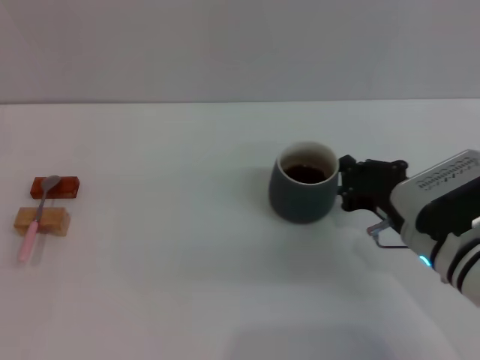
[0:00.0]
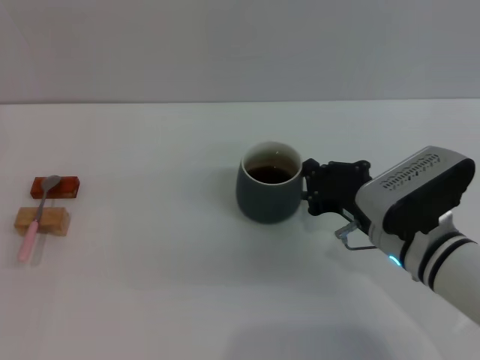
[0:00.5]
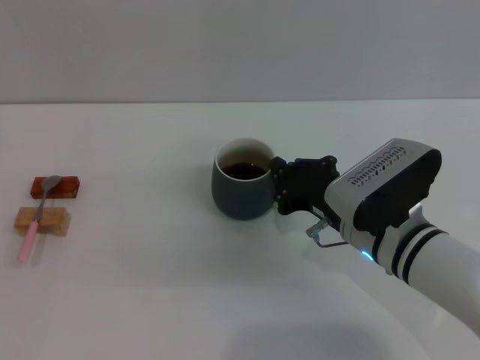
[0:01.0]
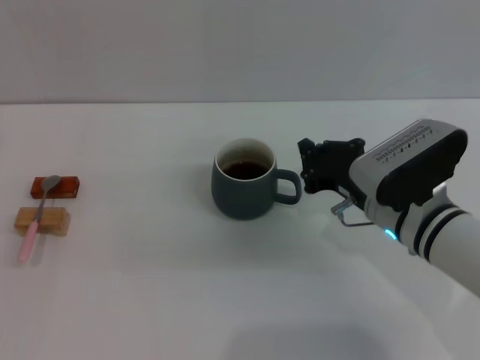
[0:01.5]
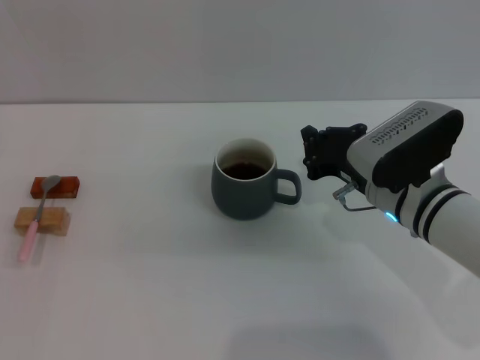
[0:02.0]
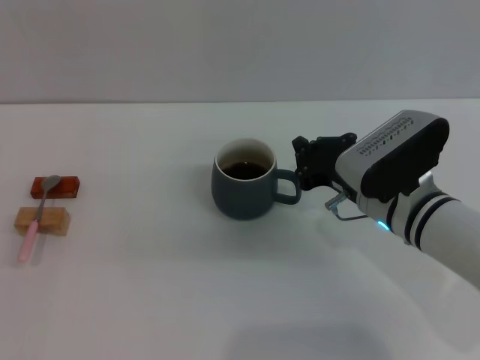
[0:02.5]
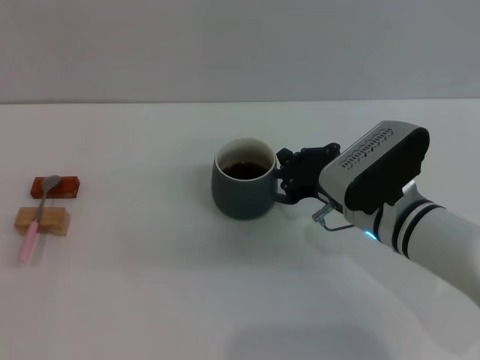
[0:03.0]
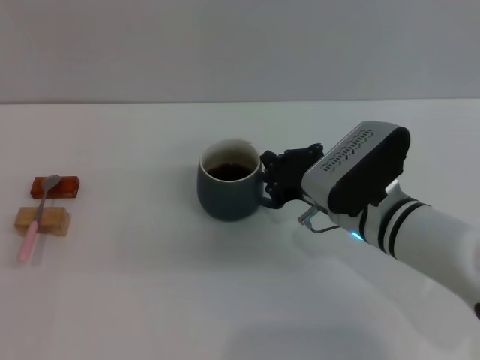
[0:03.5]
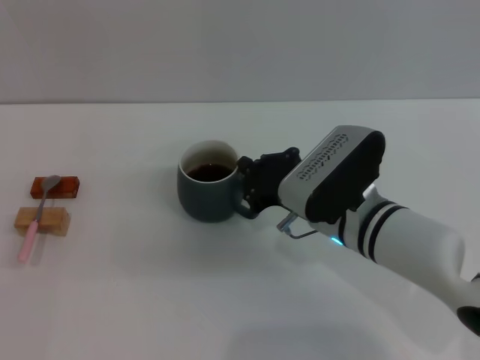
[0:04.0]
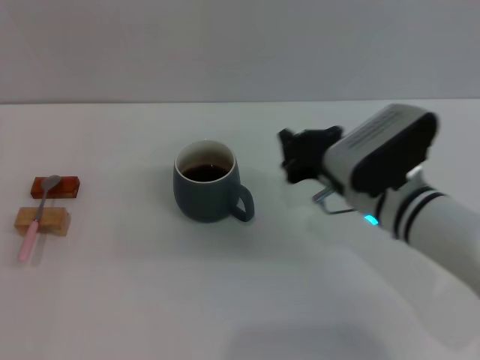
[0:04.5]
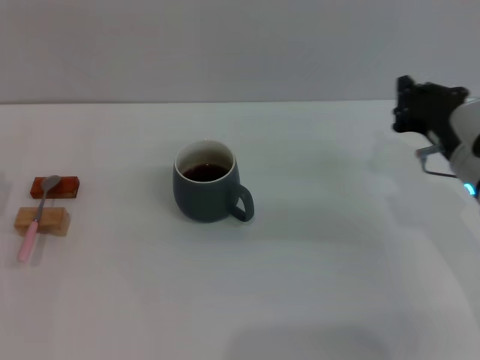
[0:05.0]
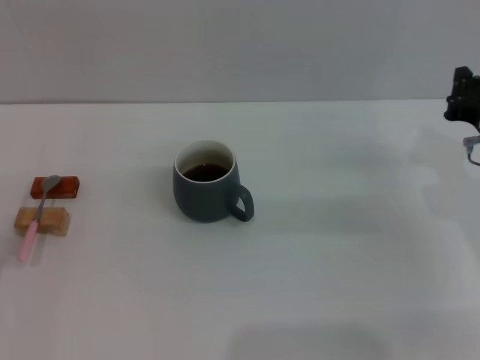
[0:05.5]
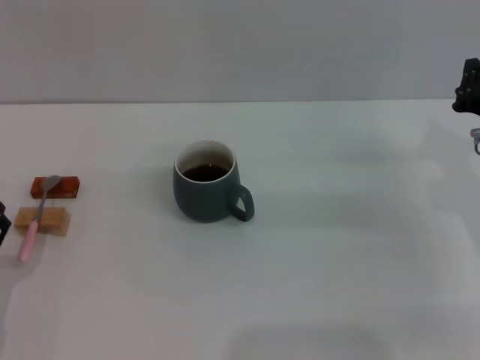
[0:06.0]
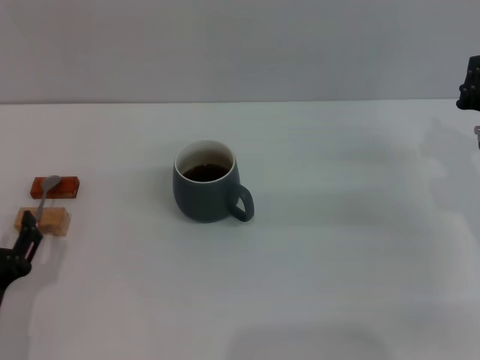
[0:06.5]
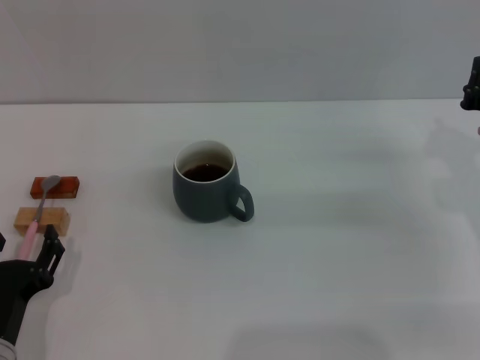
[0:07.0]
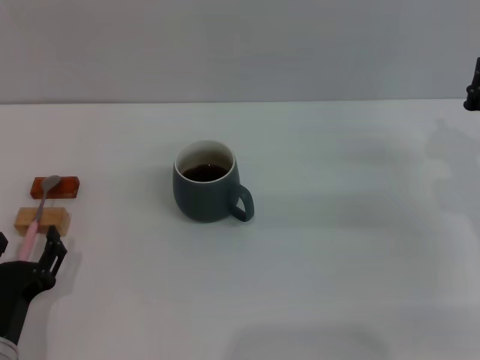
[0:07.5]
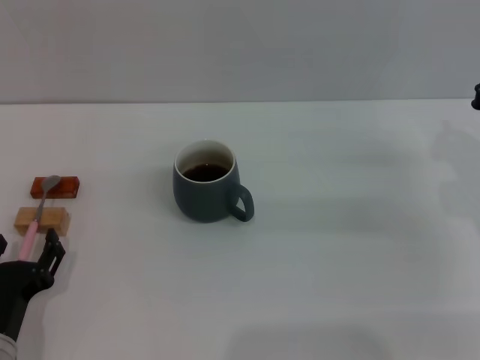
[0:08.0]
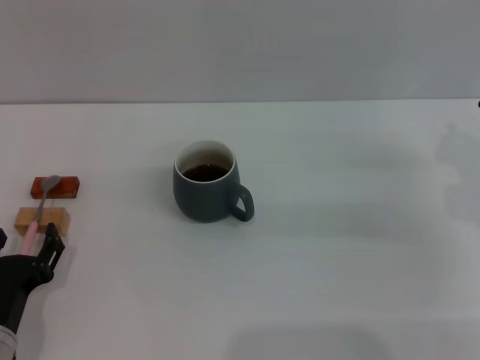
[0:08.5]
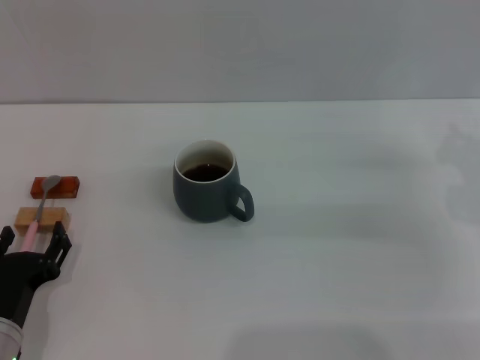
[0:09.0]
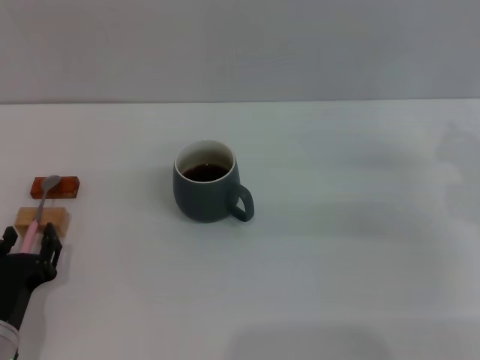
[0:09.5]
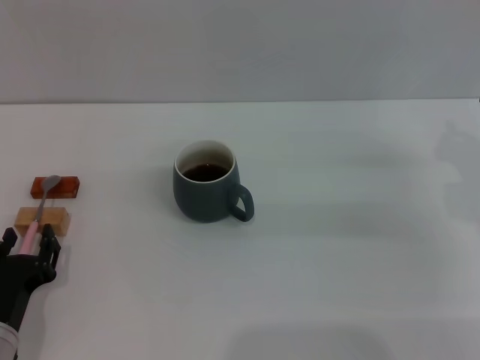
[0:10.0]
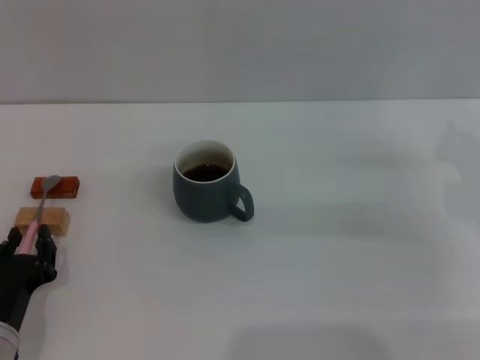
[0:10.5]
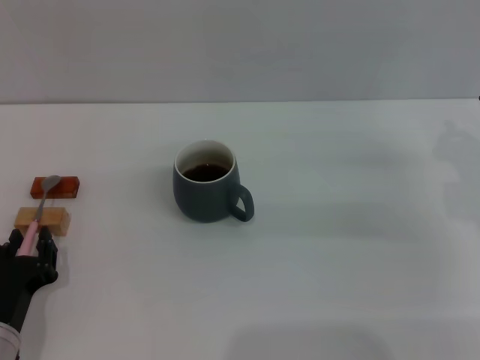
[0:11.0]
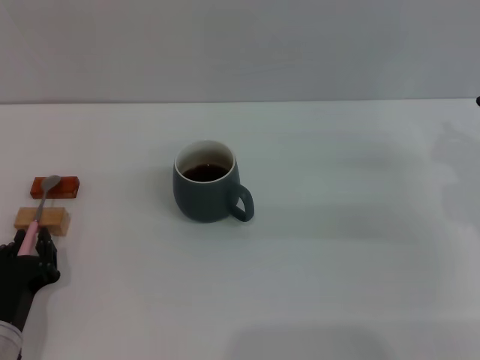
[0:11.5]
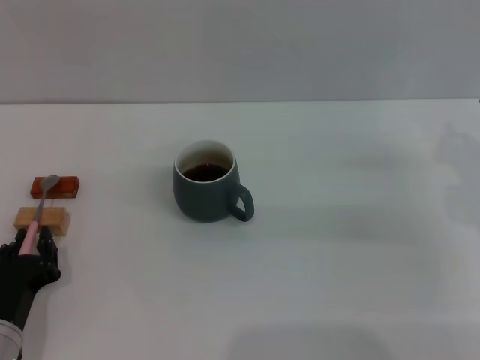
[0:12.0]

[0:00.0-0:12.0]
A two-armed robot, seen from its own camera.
Task of the whole recording: Move the grey cup to the center, lift the pink spoon, stir it three times in the cup, and put the spoon into the cup.
Step, 0:00.0 to 0:04.5: Move the cup with coffee to the center of view with the right gripper.
0:00.0 to 0:02.0: The right gripper shifts by some 5 cm.
0:02.0 to 0:04.0: The right gripper shifts some 5 cm to the left.
0:04.0 to 0:06.0: The right gripper goes approximately 20 cm to the right. Meanwhile the left gripper goes about 15 cm to the right, backward and downward.
0:06.0 to 0:08.0: The left gripper shifts by roughly 5 cm.
0:08.0 to 0:10.0: The grippers make only small movements.
0:10.0 to 0:12.0: The left gripper closes up.

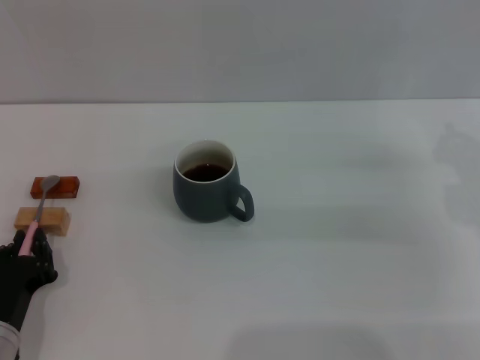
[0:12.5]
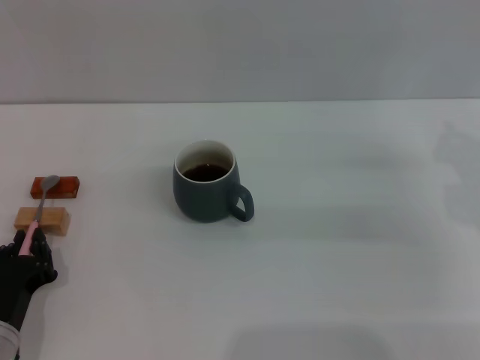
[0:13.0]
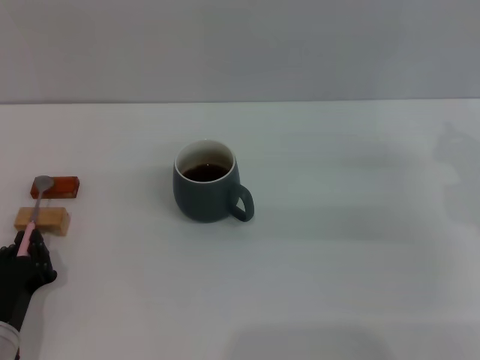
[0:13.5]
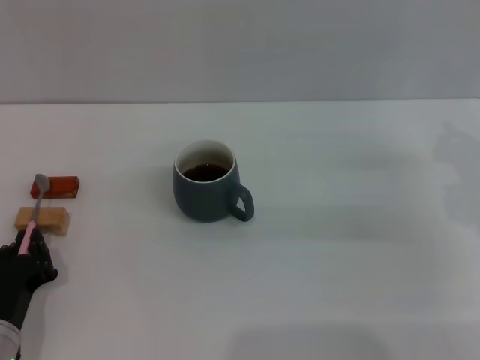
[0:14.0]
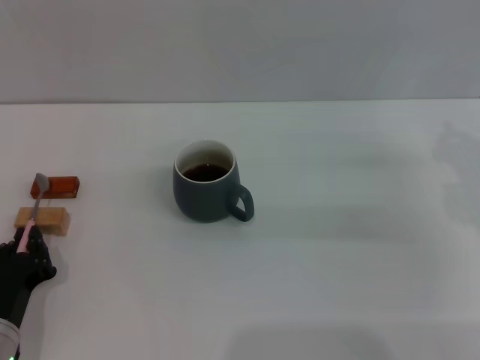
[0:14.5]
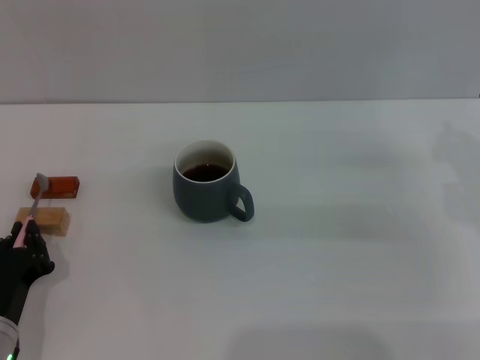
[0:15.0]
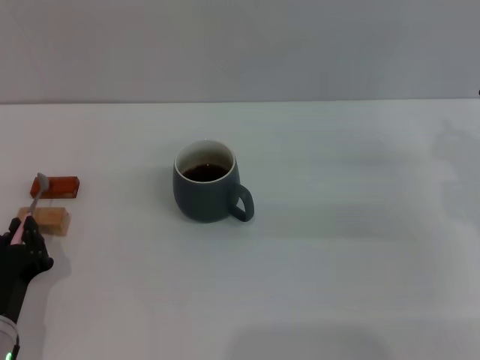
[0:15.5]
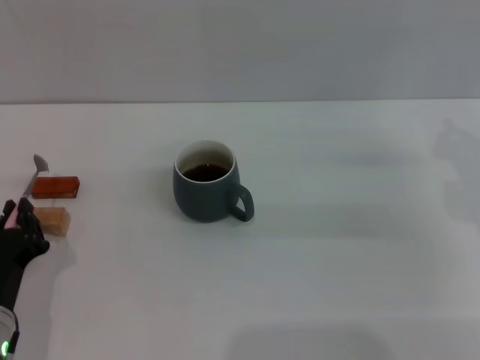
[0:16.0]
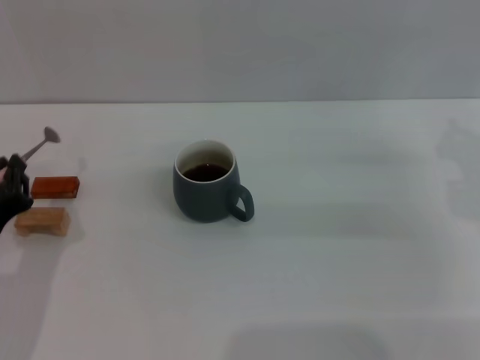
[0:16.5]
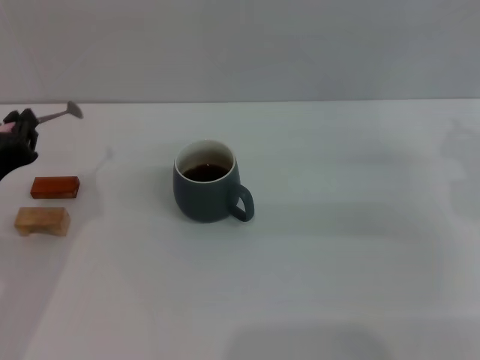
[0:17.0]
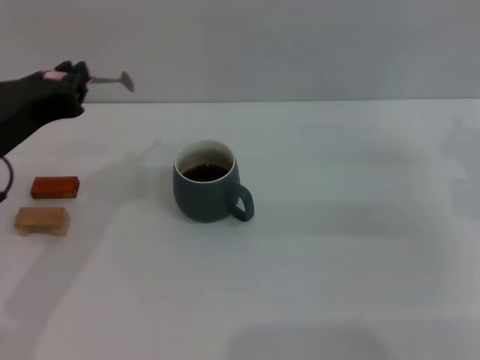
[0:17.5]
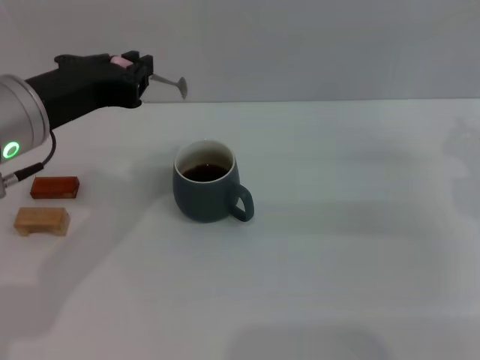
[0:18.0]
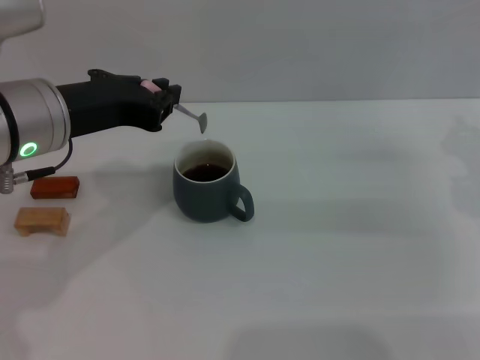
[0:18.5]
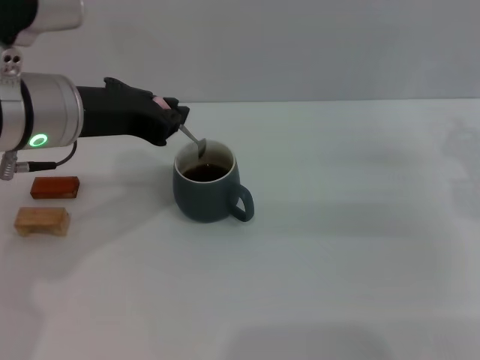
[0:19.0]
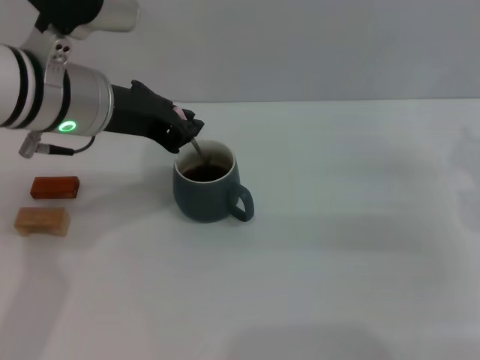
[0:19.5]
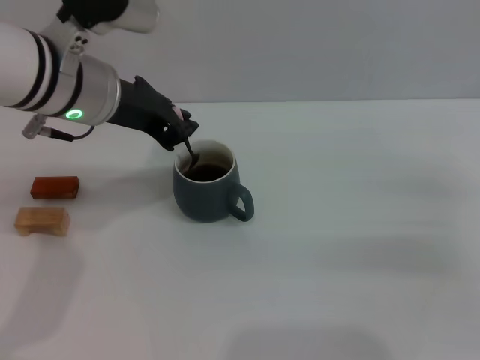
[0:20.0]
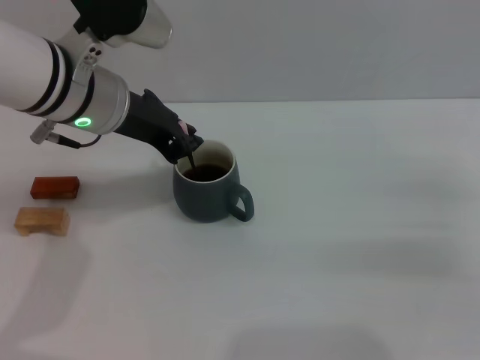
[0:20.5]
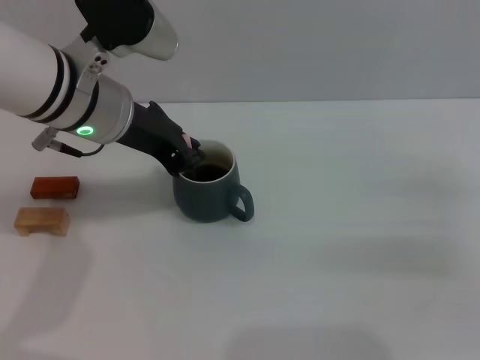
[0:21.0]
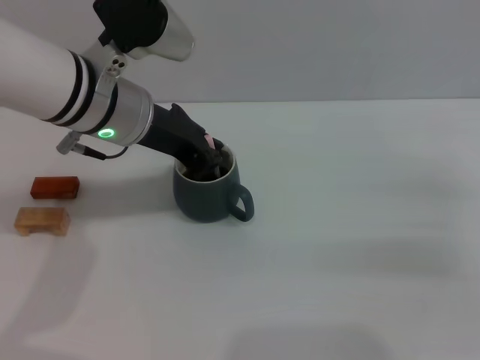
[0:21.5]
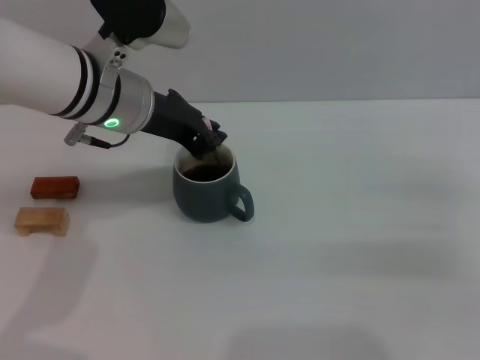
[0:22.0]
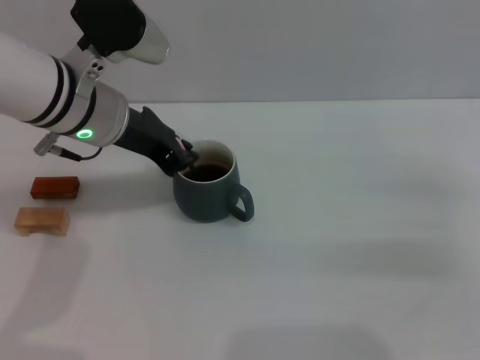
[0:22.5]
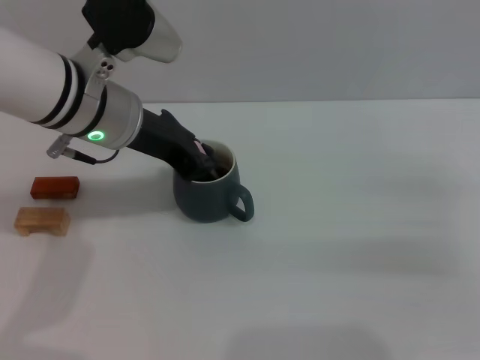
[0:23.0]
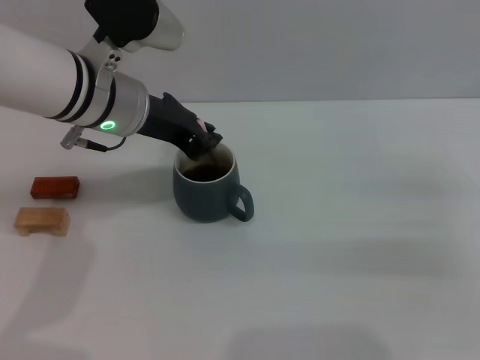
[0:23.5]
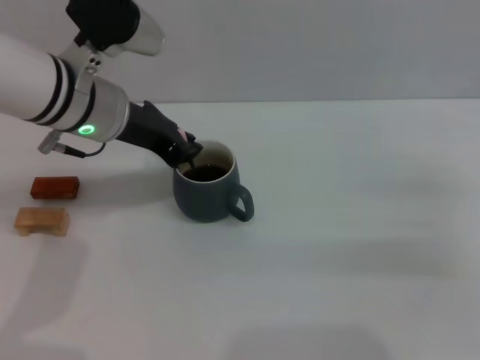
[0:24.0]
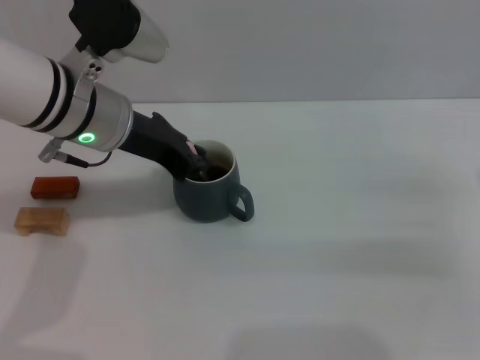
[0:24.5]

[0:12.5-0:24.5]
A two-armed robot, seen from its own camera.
Task of the whole recording: Move the grey cup to the center, lift the pink spoon, stir it three times in the cup, and put the spoon into the cup.
Step, 0:12.5 to 0:16.5: Pick up the spoon with the left gripper.
0:12.5 to 0:14.5: Both grippers stay put.
0:14.5 to 0:16.5: The left gripper goes roughly 10 cm upward.
0:16.5 to 0:18.5: The left gripper travels upward, forward and to the right by about 20 cm.
0:18.5 to 0:20.5: The right gripper shifts roughly 5 cm backward. The left gripper goes some 5 cm forward.
0:20.5 to 0:24.5: The grippers stay close to where they were, moving slightly.

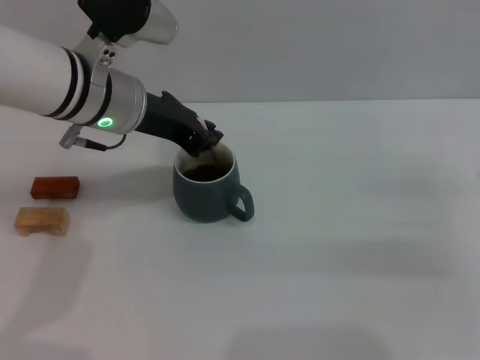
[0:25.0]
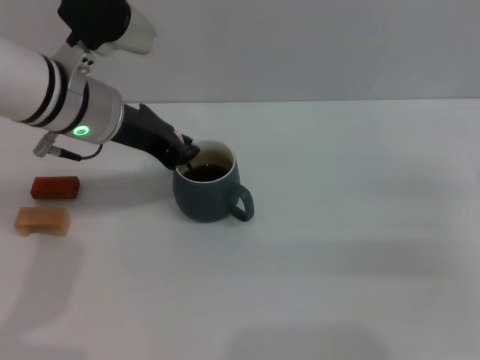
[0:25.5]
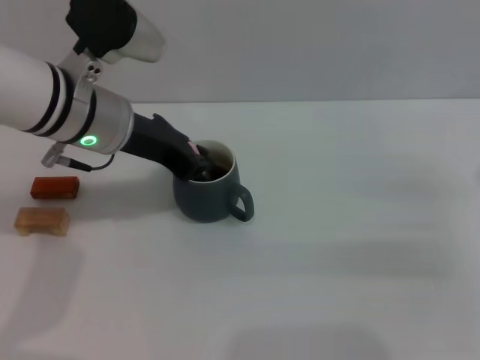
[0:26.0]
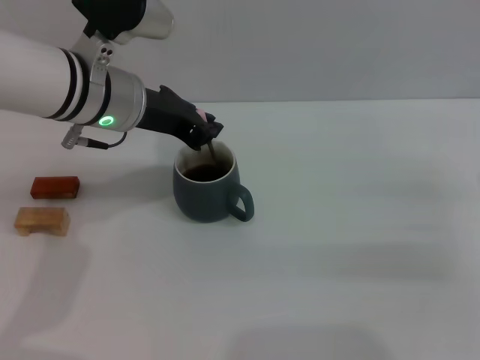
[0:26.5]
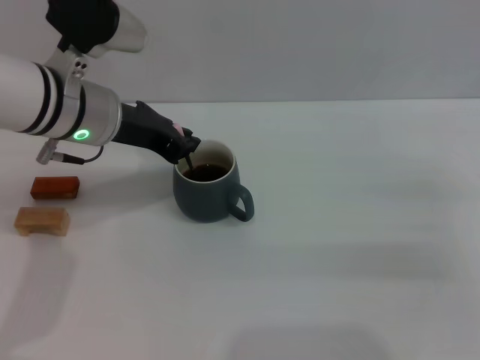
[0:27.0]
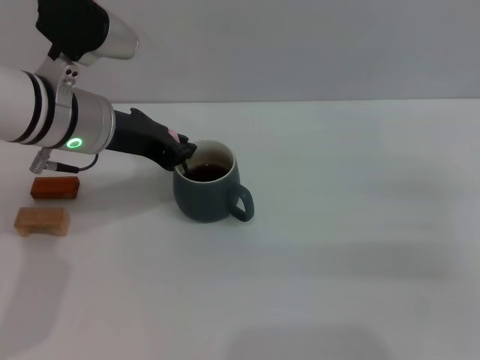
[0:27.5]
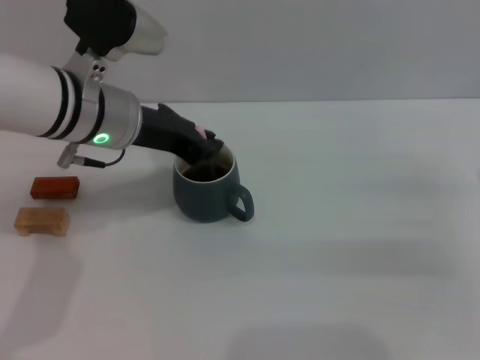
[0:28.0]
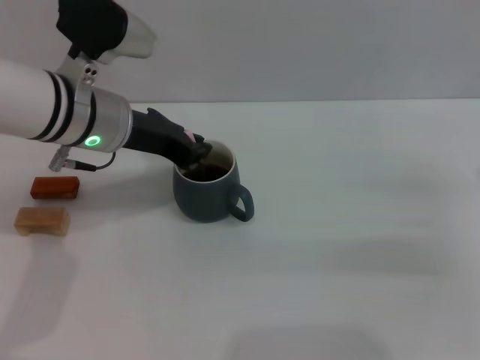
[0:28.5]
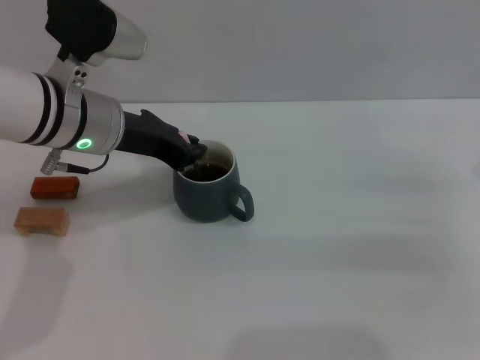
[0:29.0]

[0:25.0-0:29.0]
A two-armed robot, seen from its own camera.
Task of the whole recording: Move the grey cup to the center, lift the pink spoon, stir it three times in the cup, and put the spoon into the cup.
0:25.0 to 0:29.0: The grippers stay close to where they were, moving slightly.
